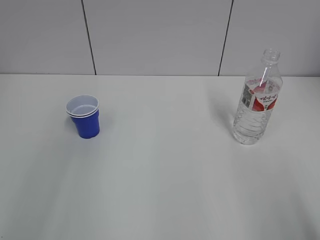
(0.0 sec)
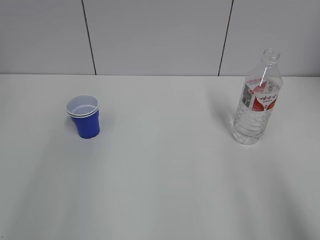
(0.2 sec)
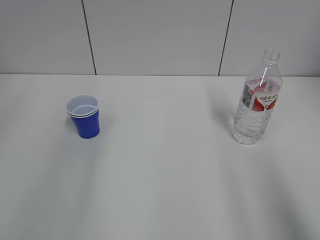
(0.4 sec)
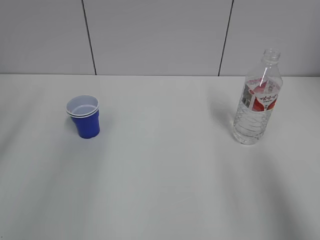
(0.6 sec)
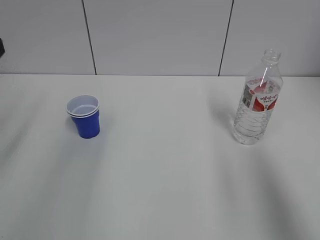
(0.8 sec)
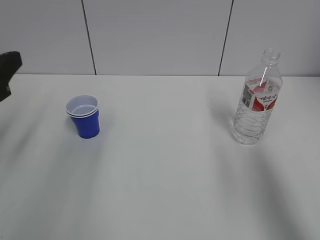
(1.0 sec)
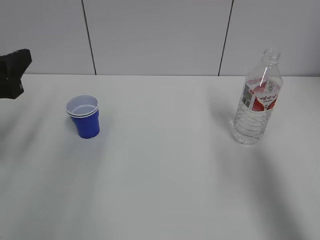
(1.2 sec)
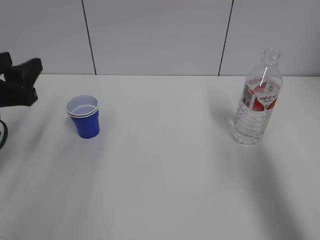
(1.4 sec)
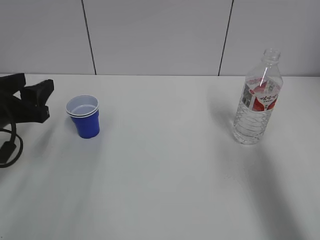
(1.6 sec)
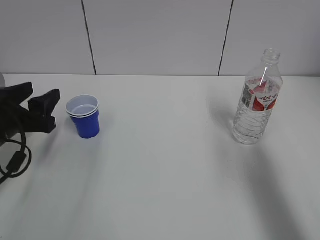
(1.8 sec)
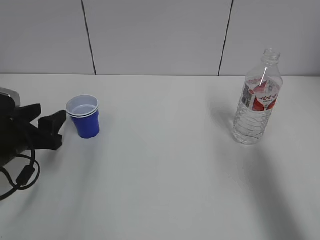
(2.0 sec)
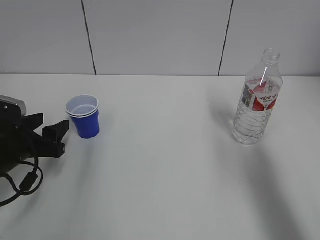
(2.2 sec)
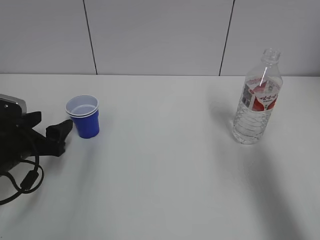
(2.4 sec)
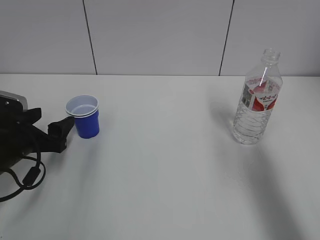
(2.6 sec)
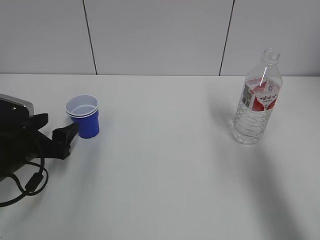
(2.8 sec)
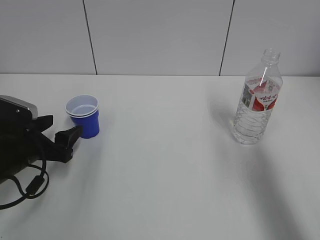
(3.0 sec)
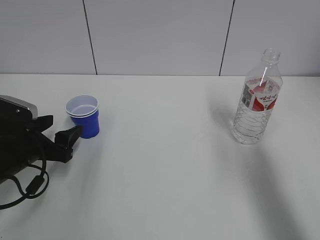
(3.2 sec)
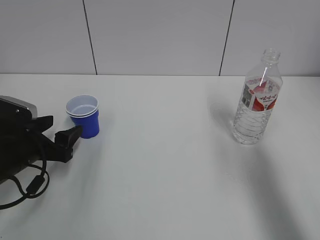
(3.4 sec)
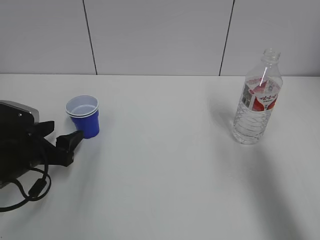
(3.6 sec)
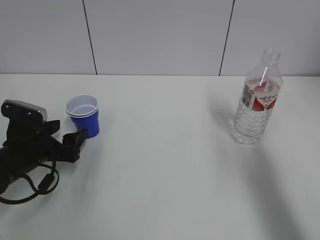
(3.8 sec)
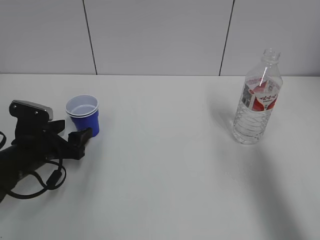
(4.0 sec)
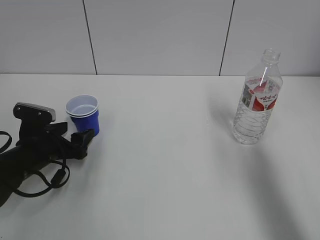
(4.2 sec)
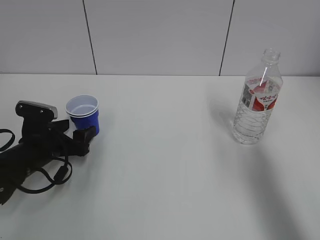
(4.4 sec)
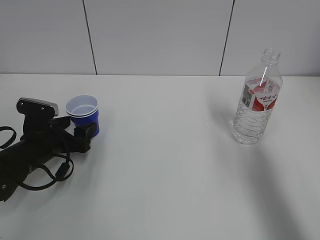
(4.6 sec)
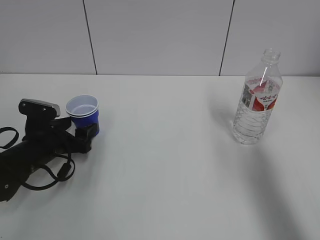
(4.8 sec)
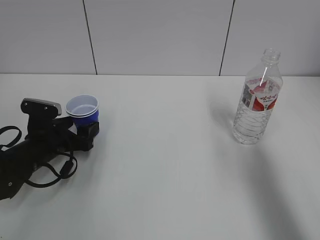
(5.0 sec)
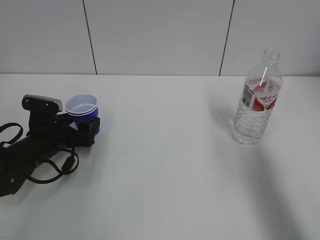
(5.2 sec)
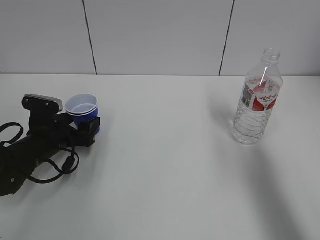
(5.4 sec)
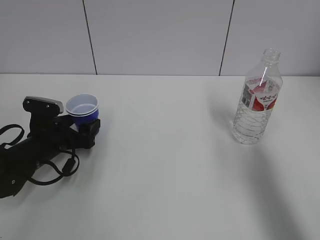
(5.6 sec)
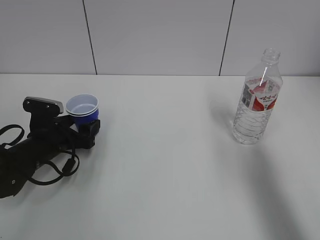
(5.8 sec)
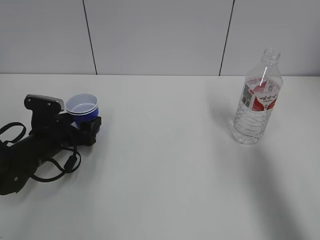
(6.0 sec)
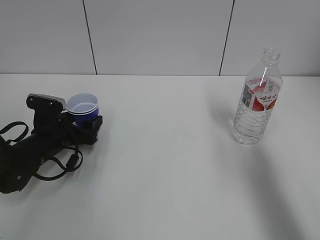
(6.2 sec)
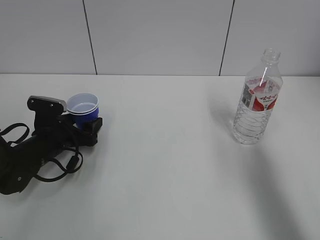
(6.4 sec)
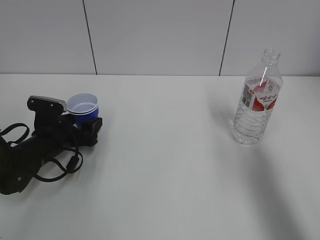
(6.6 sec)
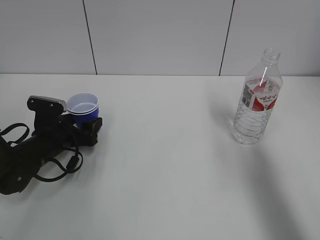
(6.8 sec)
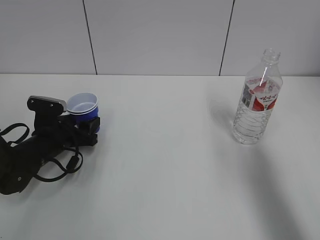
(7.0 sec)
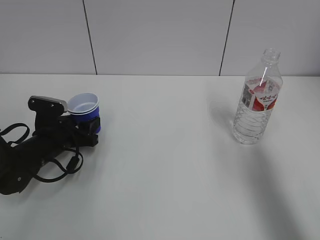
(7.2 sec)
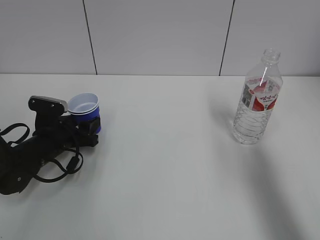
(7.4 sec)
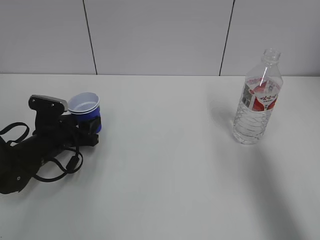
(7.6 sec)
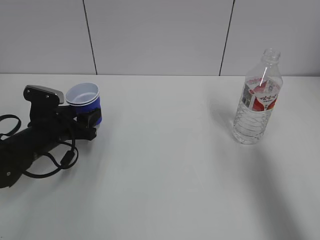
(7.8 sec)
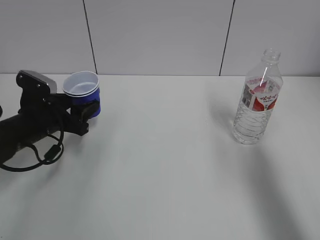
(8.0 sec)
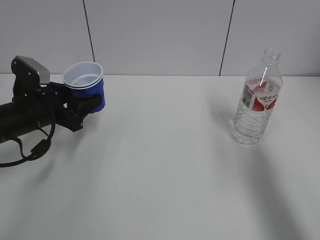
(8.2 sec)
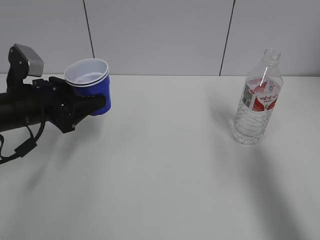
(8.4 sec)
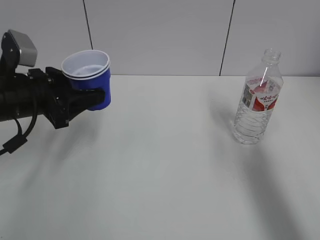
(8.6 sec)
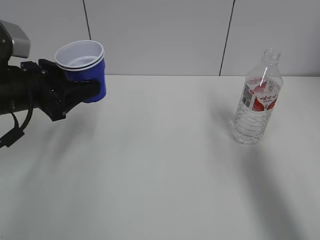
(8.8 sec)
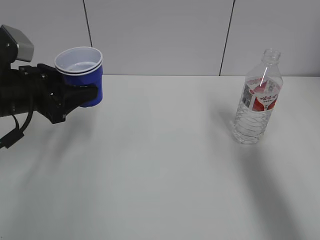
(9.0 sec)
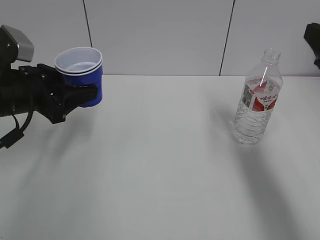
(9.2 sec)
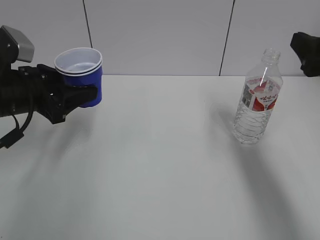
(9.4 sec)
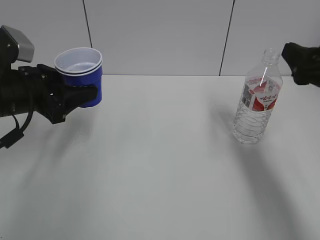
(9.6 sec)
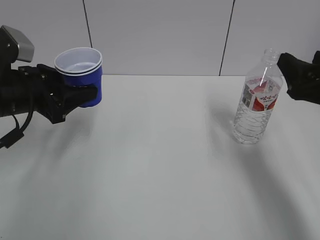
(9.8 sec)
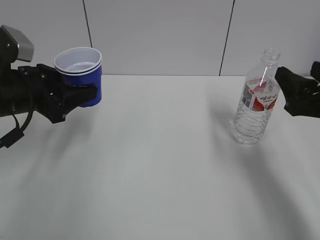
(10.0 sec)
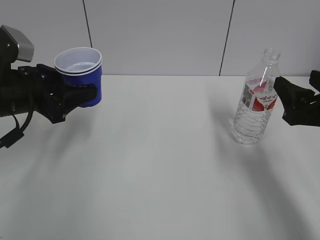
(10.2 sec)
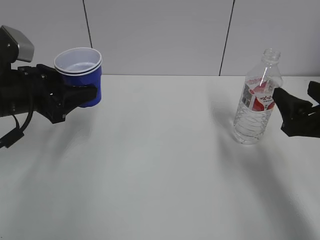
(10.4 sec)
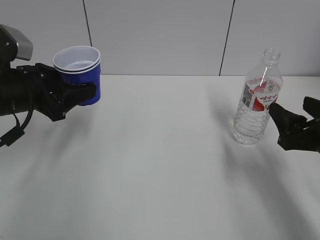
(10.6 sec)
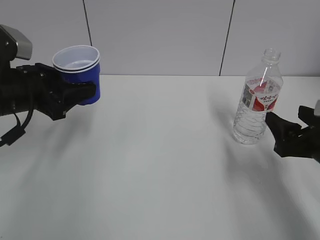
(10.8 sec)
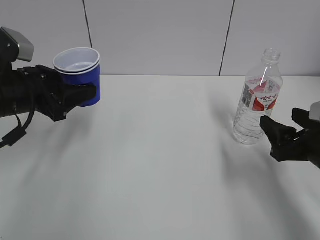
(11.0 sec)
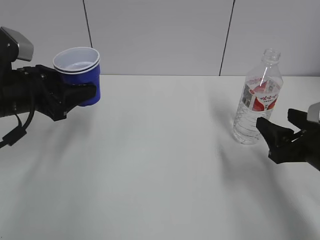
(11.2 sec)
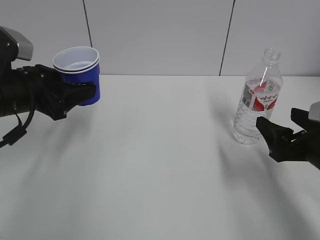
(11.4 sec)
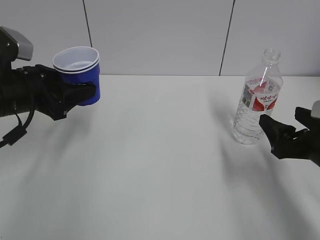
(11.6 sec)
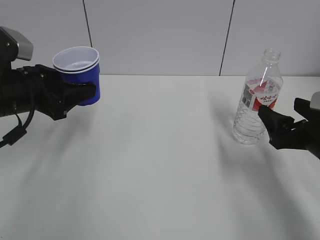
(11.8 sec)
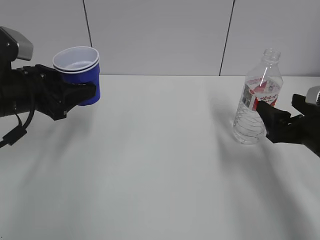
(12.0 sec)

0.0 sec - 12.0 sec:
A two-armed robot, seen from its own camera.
Step, 0.0 sec - 7.4 sec: Grab the paper cup with the left hand.
0.0 sec - 1.6 sec: The left gripper heads downward, forward and to the right, covering about 25 cm. The right gripper travels forward by about 20 cm.
1.6 sec - 3.0 sec: The left gripper goes some 10 cm downward, and opens up.
3.0 sec - 4.4 sec: The left gripper moves some 5 cm.
4.4 sec - 6.0 sec: There are only small adjustments of the grippers.
6.0 sec - 7.6 sec: The left gripper closes.
7.6 sec - 9.0 sec: The left gripper travels upward by roughly 15 cm.
9.0 sec - 10.4 sec: The right gripper is displaced downward by some 15 cm.
10.4 sec - 12.0 sec: The right gripper opens.

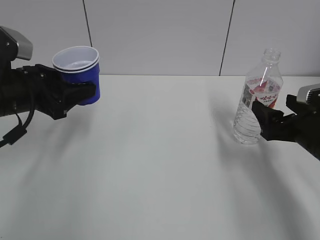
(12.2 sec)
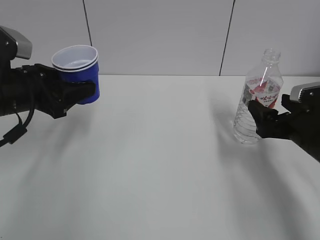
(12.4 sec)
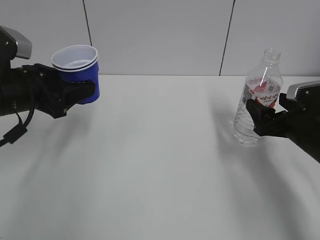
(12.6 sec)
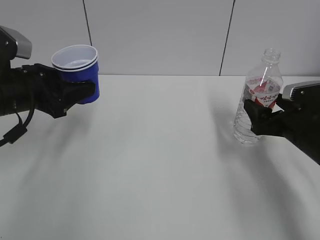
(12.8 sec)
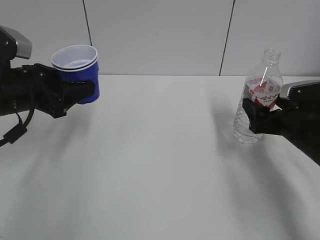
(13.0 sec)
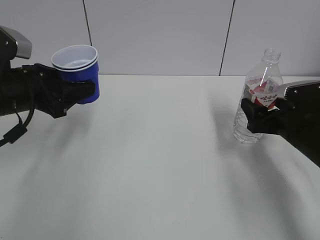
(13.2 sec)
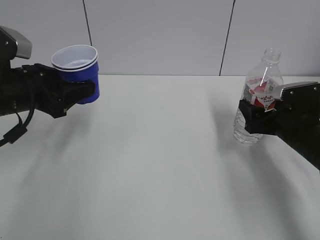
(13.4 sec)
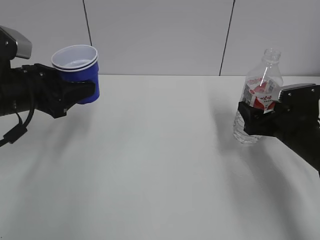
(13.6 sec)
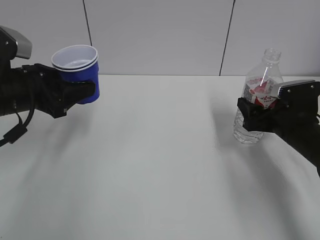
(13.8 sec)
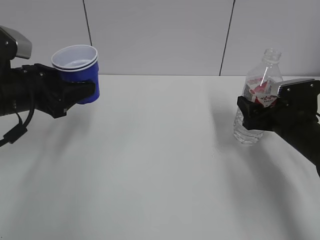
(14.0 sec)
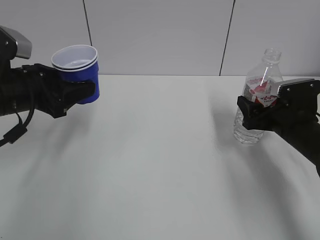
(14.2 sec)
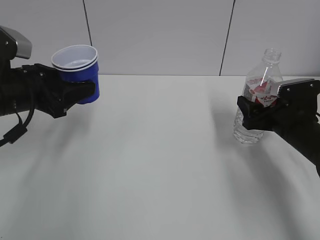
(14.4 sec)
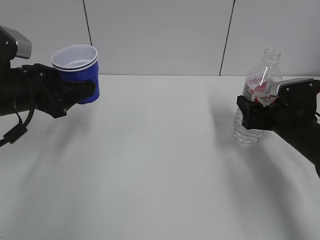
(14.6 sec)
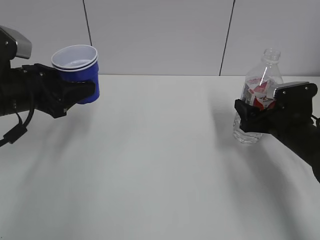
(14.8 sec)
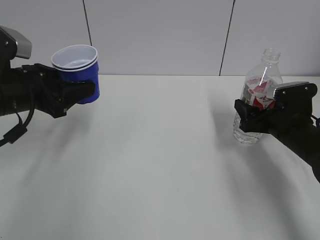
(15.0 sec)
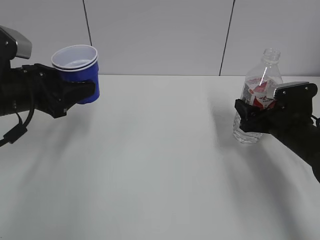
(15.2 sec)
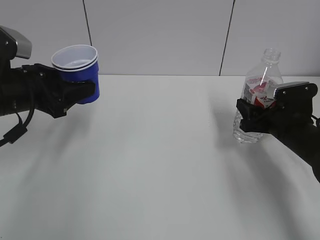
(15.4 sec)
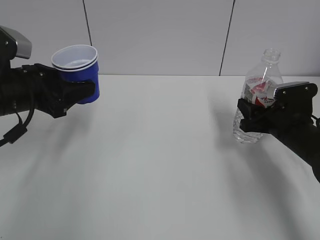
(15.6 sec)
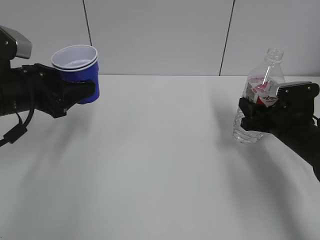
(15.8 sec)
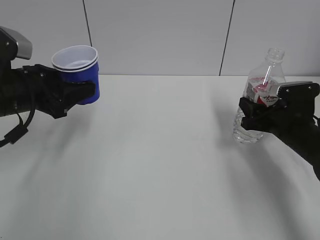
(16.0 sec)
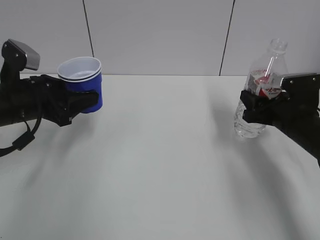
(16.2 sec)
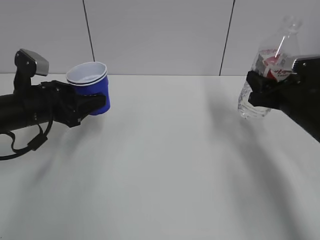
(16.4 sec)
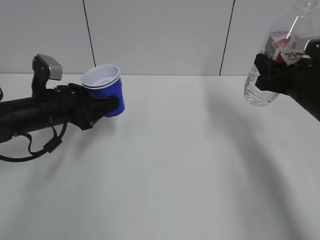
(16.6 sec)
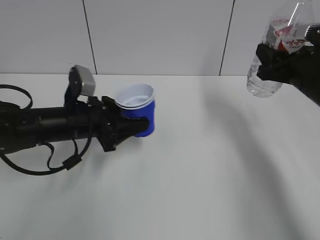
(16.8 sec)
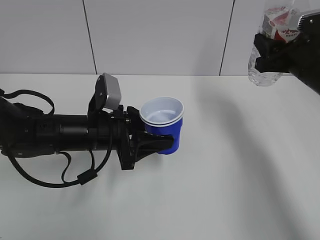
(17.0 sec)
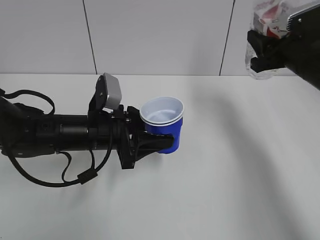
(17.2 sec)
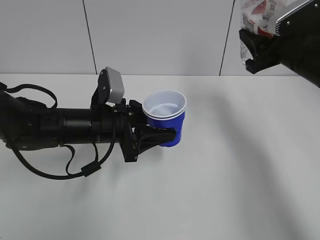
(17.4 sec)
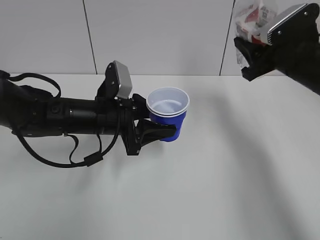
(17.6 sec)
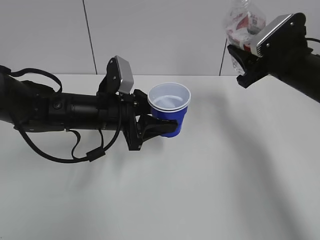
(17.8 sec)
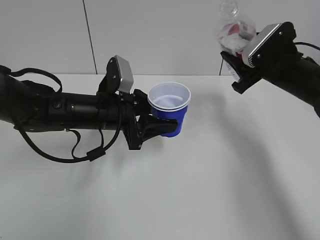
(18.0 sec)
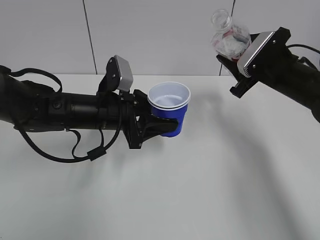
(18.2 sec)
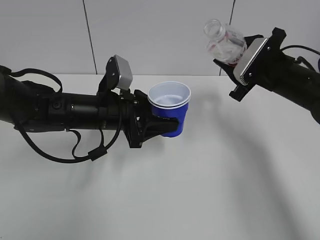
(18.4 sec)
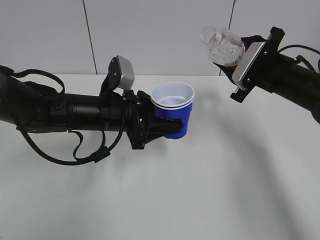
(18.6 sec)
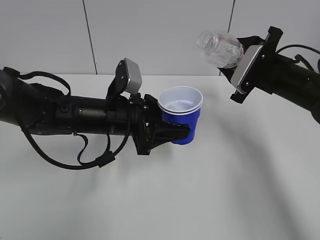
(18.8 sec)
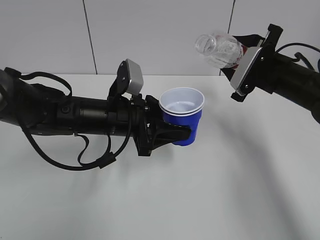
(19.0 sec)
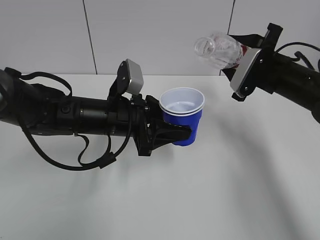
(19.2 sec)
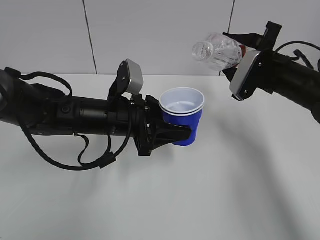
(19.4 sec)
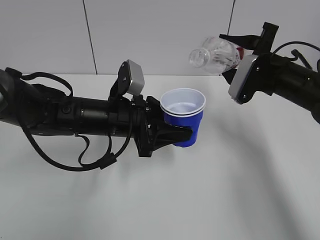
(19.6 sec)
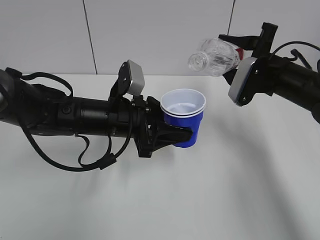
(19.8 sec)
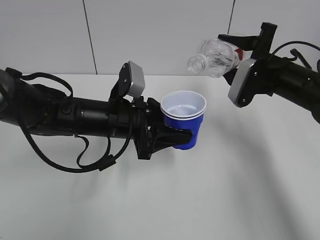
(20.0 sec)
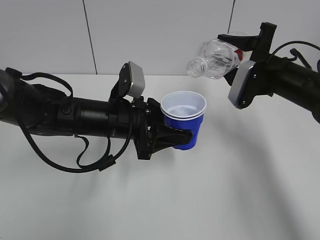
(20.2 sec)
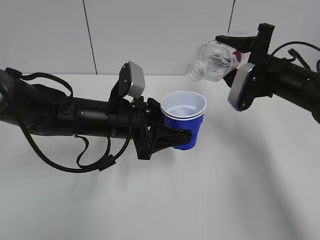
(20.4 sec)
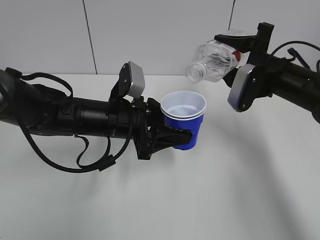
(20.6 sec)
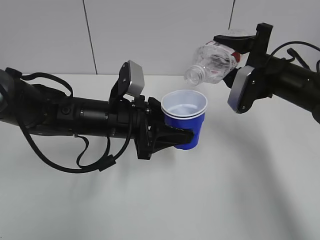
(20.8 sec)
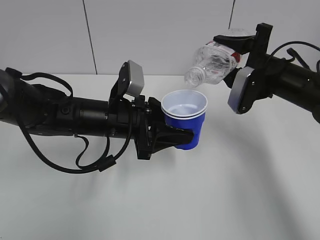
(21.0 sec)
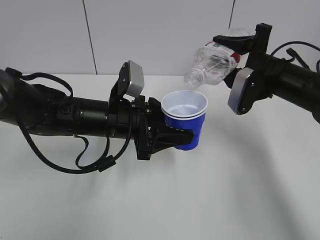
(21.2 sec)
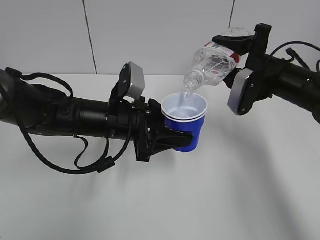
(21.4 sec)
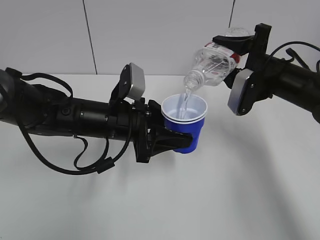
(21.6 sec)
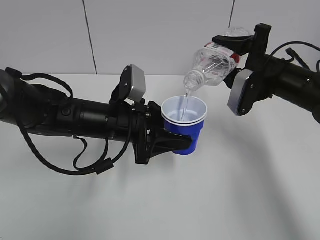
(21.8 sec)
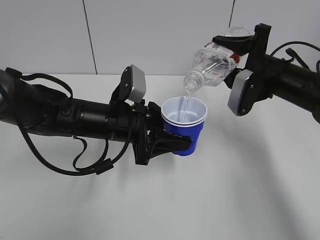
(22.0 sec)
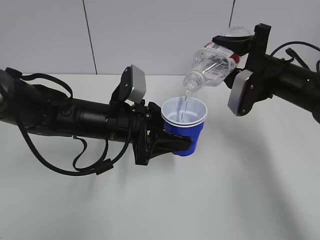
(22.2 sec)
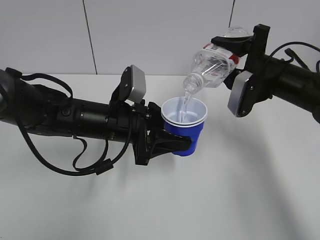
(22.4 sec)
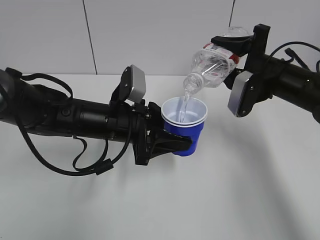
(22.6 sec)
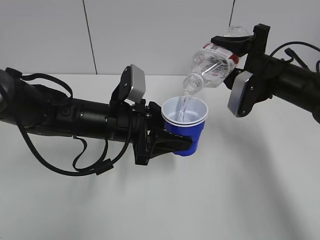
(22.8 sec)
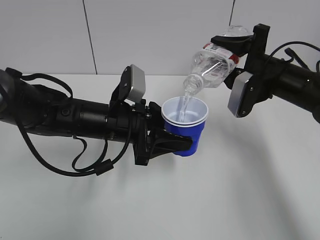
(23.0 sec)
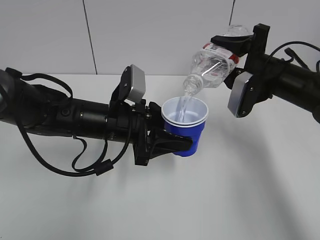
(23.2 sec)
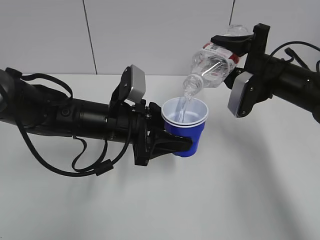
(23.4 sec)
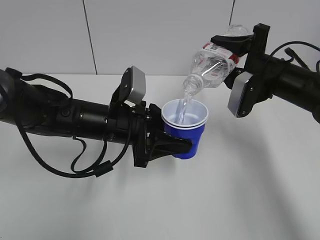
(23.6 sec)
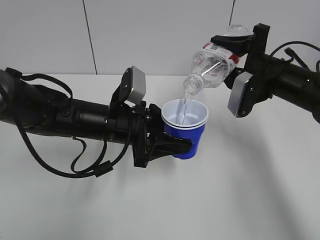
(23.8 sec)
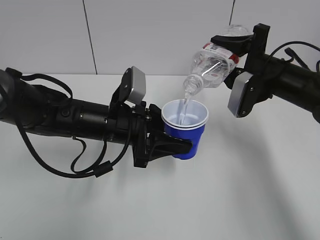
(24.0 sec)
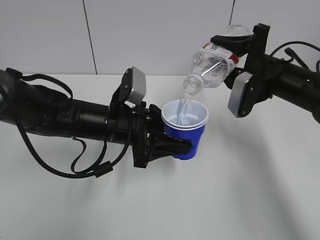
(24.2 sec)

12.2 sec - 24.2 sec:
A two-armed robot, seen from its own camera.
Step, 12.2 sec - 15.8 sec: Grab the water bottle with the right hand.
Step, 16.0 sec - 21.0 sec: Lift the paper cup with the left hand.
12.2 sec - 13.8 sec: The right gripper goes approximately 5 cm forward.
13.8 sec - 15.2 sec: Both grippers stay put.
15.2 sec - 16.6 sec: The right gripper is displaced upward by roughly 10 cm, and closes its fingers, while the left gripper shifts some 5 cm downward.
16.6 sec - 18.2 sec: The left gripper heads to the right, covering approximately 10 cm. The right gripper ends up approximately 5 cm from where it was.
19.8 sec - 21.2 sec: There are only small adjustments of the grippers.
21.2 sec - 24.2 sec: Neither gripper changes place.
